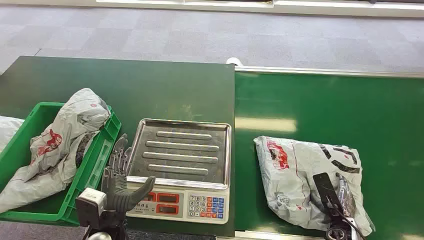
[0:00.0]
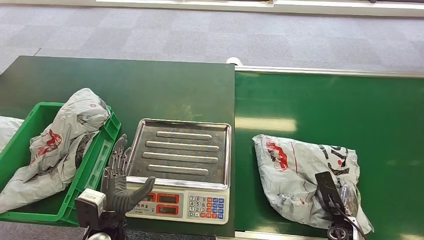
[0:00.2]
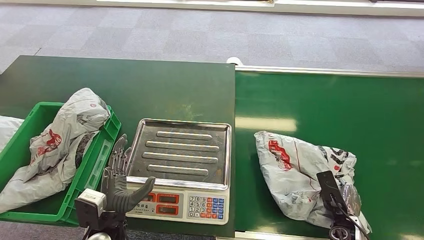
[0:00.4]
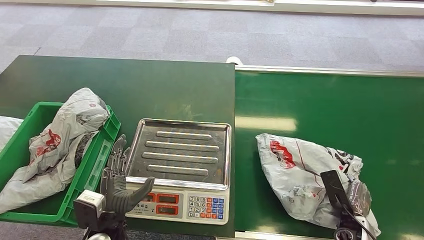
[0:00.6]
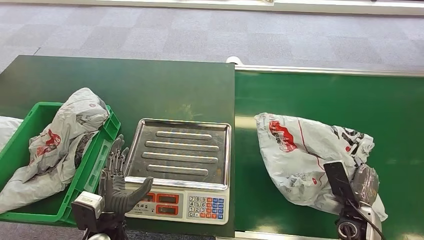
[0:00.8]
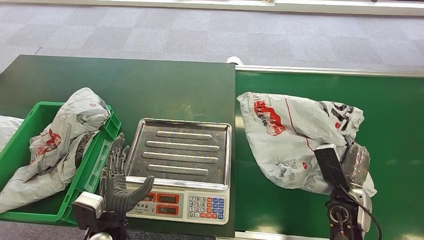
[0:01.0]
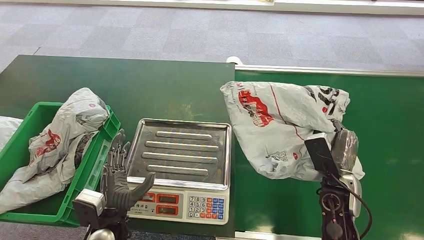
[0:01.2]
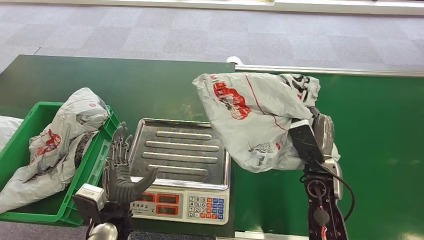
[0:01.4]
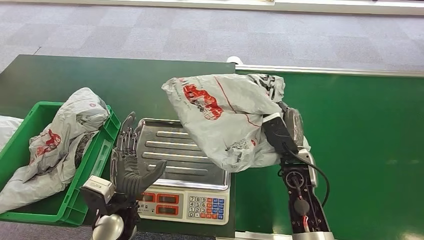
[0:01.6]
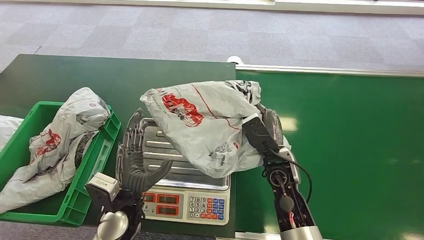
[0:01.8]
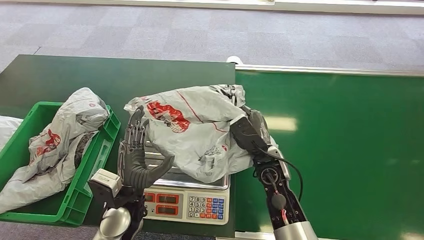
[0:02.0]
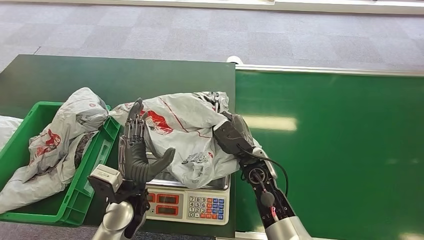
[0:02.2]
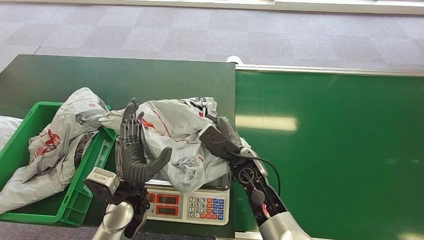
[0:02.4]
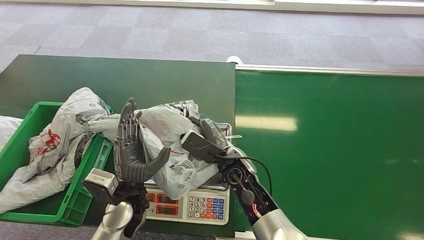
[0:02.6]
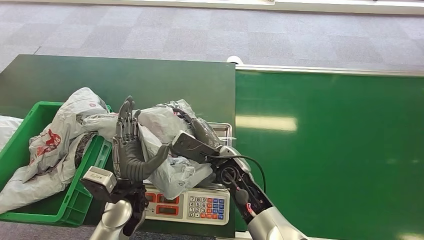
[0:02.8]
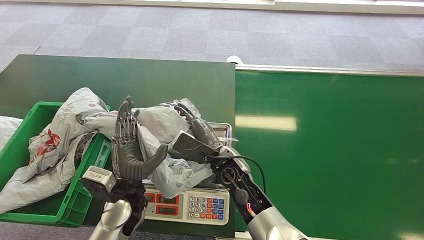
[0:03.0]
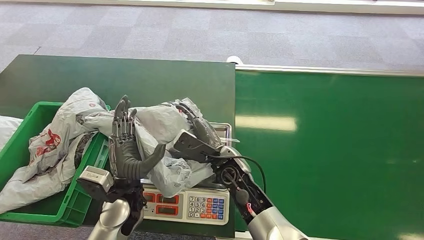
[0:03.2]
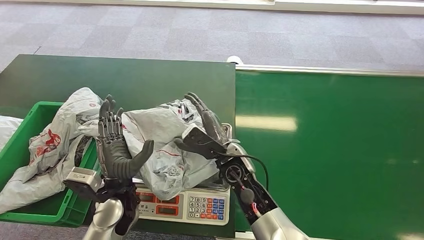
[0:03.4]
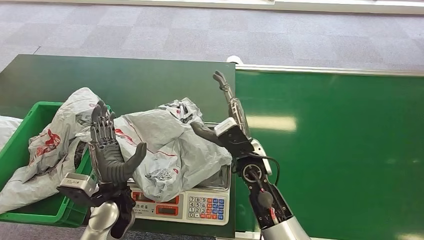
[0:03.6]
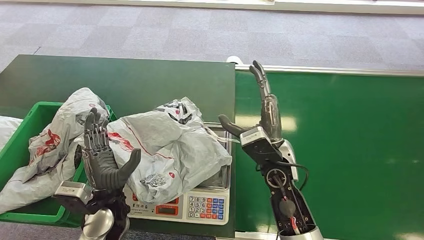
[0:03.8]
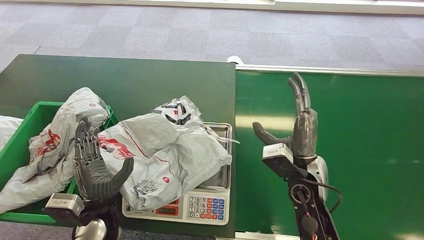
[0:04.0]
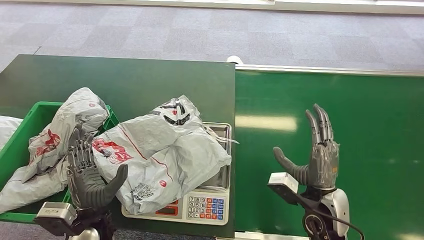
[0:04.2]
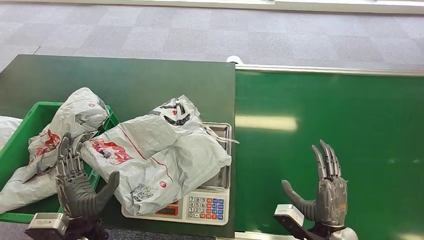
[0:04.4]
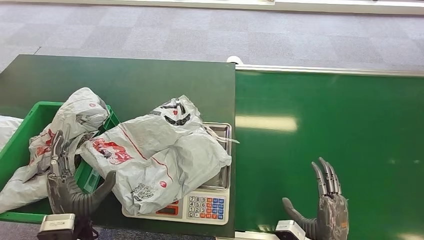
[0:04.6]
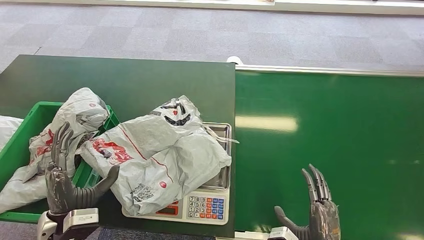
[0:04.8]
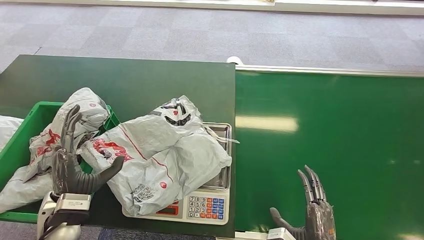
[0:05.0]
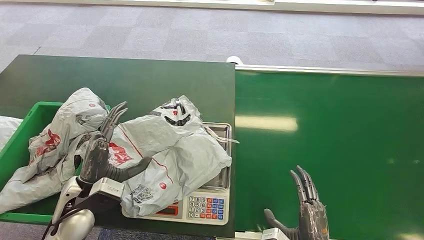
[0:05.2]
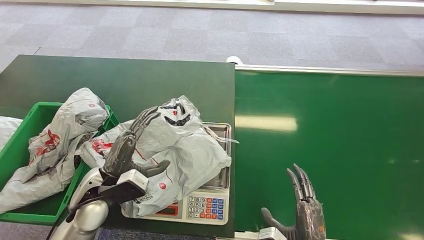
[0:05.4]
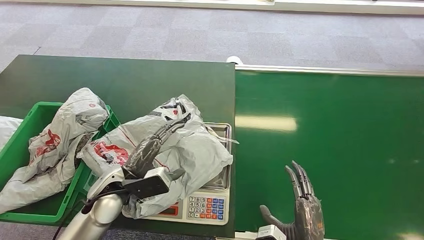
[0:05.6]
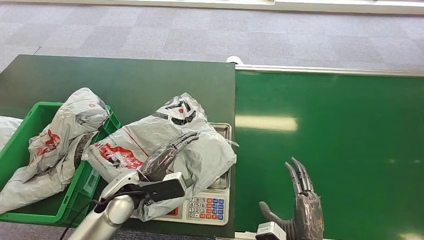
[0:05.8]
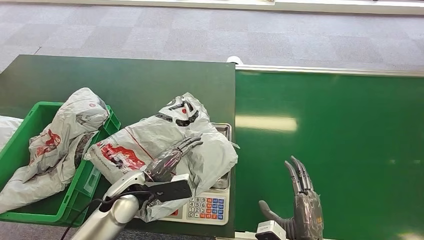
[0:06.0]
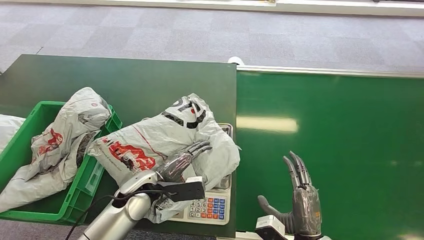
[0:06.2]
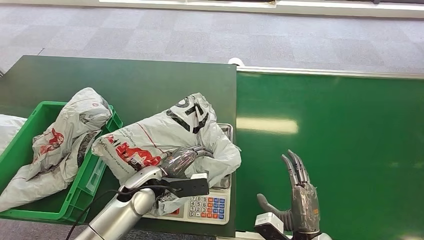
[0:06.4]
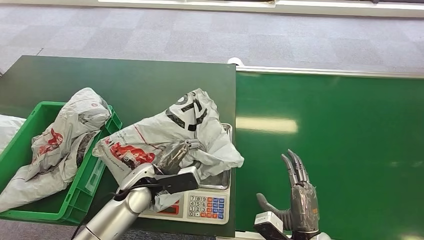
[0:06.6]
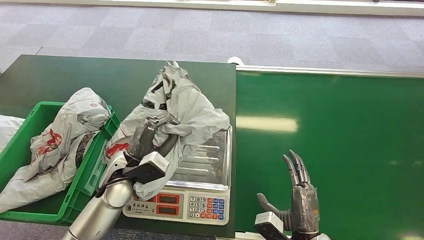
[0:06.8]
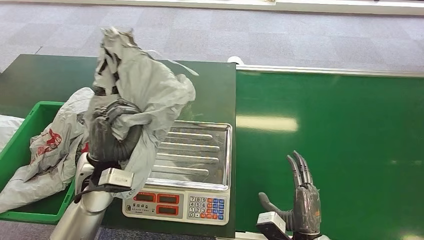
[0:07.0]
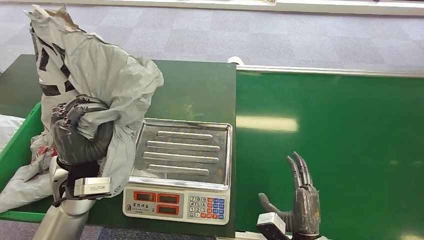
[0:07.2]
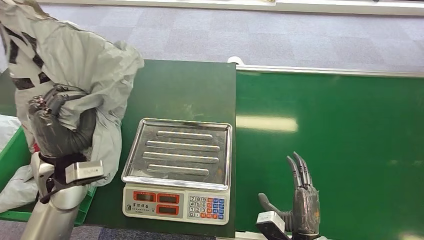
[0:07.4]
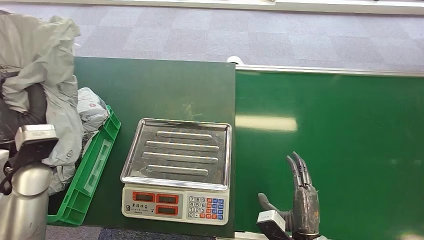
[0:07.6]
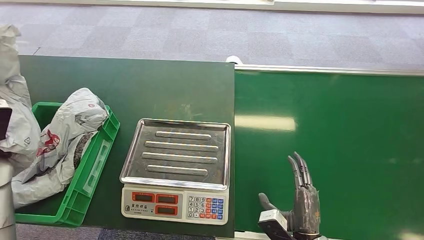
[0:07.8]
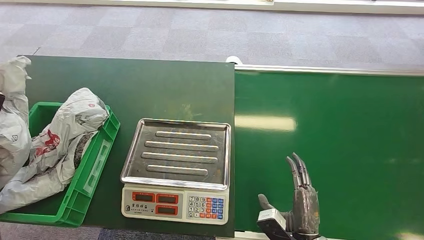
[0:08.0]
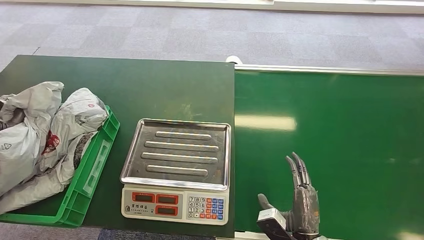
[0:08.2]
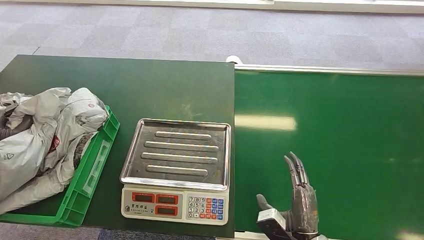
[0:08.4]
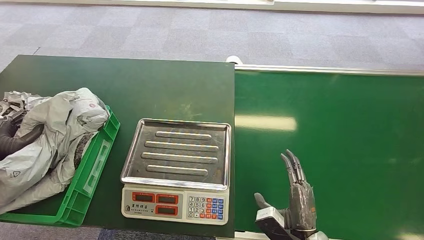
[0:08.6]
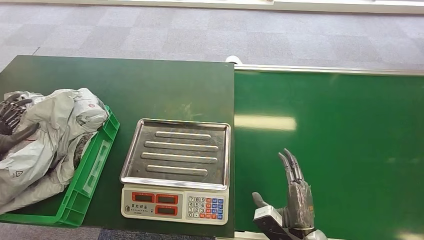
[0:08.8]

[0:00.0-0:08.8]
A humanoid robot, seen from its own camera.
Step, 0:00.0 to 0:01.0: Pick up the package from the conveyor belt.
Step, 0:01.6 to 0:03.6: Place the package onto the inbound machine.
Step, 0:06.0 to 0:07.2: Pick up the package from the inbound machine.
Step, 0:07.8 to 0:08.8: Place the package into the parcel locker.
0:04.4 to 0:05.8: The left hand shifts roughly 10 cm forward and to the right, while the right hand changes place by about 5 cm.

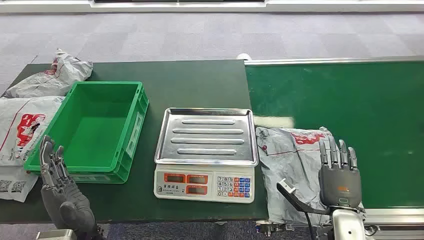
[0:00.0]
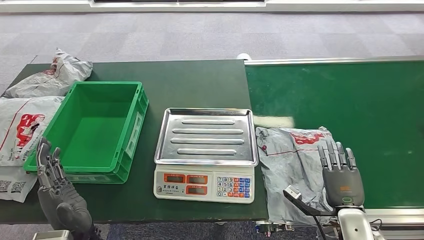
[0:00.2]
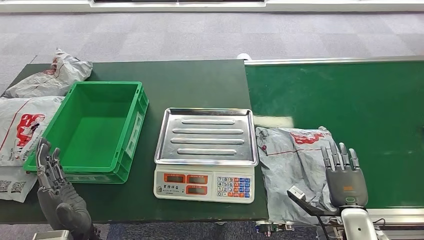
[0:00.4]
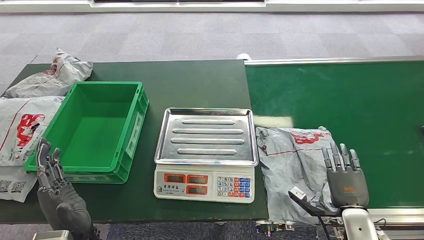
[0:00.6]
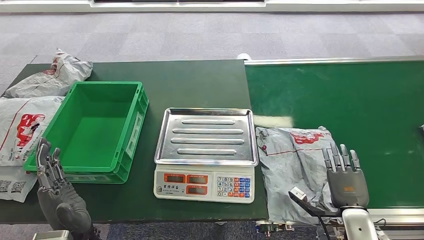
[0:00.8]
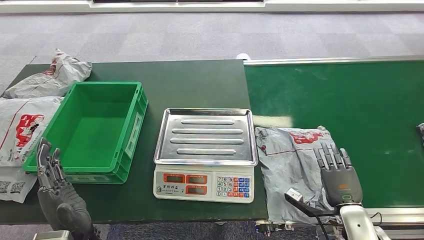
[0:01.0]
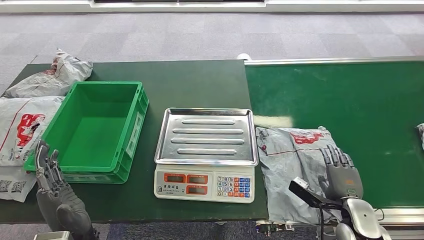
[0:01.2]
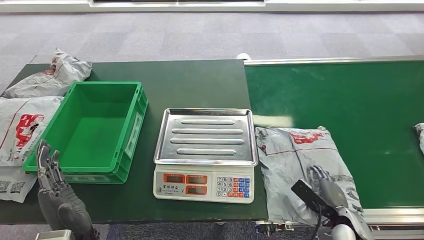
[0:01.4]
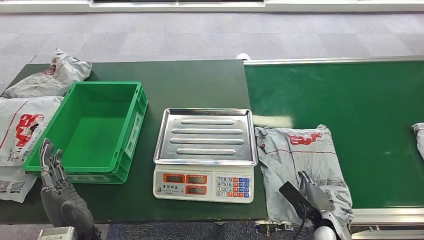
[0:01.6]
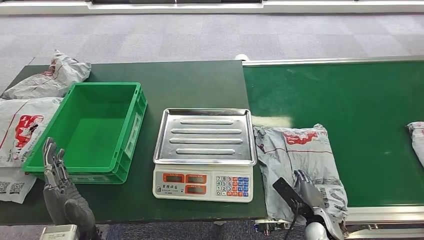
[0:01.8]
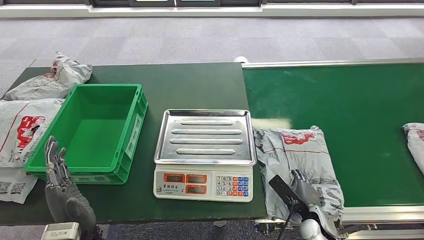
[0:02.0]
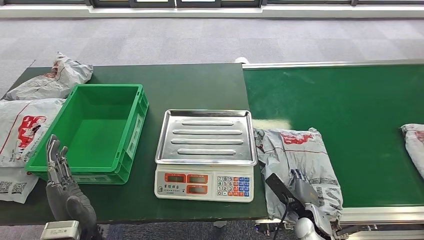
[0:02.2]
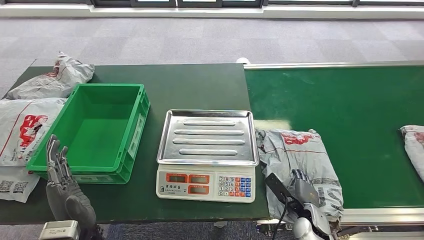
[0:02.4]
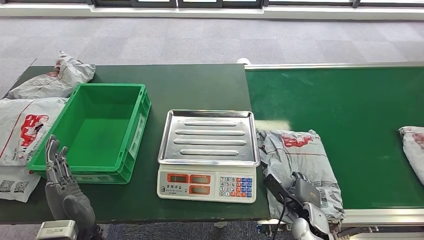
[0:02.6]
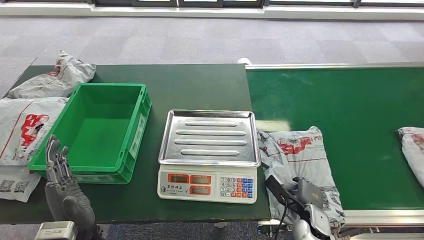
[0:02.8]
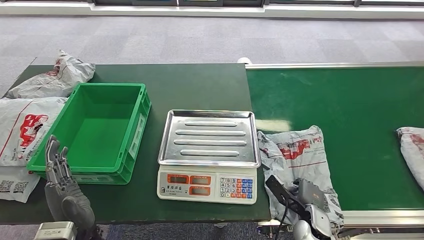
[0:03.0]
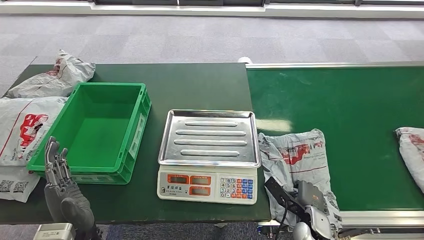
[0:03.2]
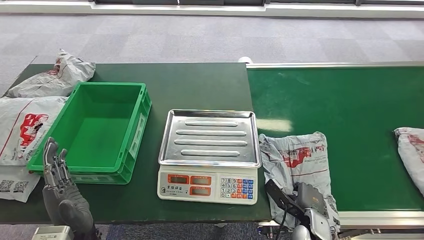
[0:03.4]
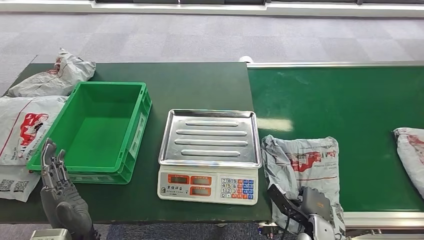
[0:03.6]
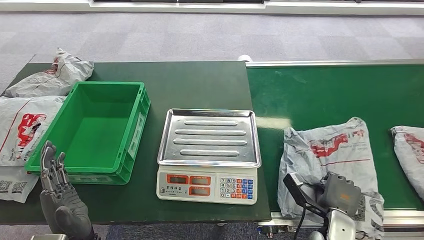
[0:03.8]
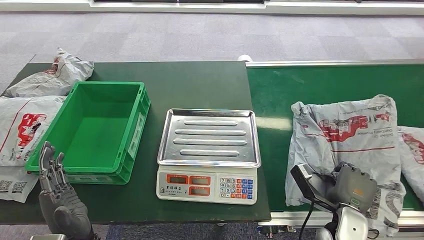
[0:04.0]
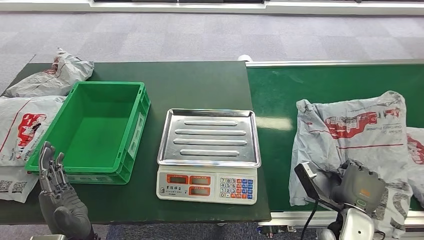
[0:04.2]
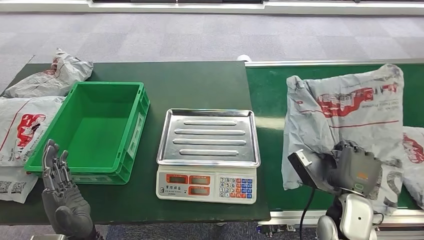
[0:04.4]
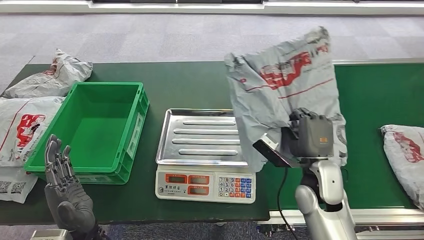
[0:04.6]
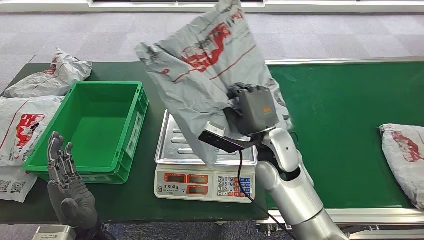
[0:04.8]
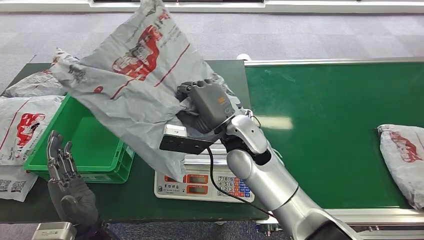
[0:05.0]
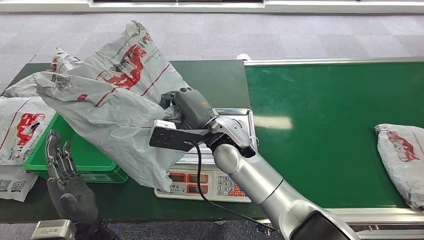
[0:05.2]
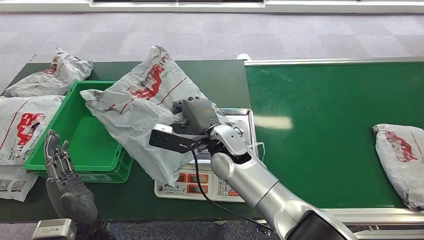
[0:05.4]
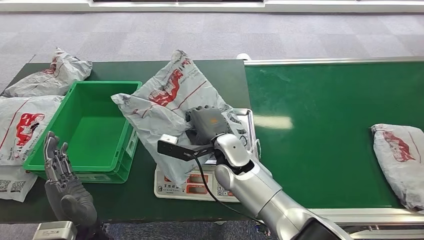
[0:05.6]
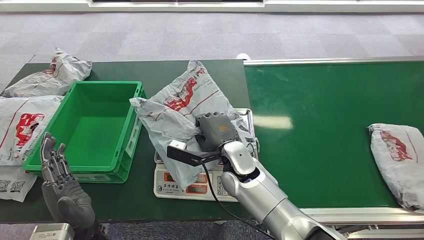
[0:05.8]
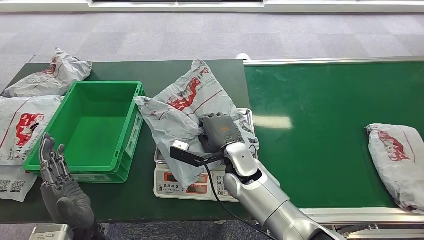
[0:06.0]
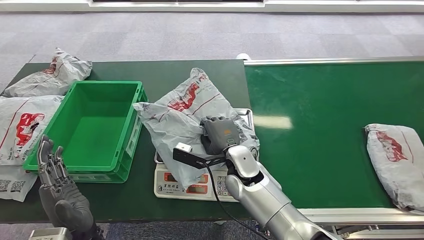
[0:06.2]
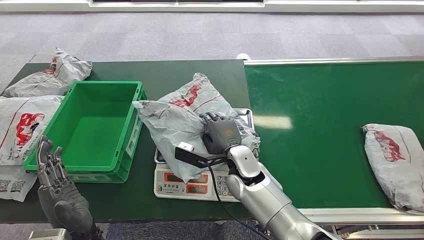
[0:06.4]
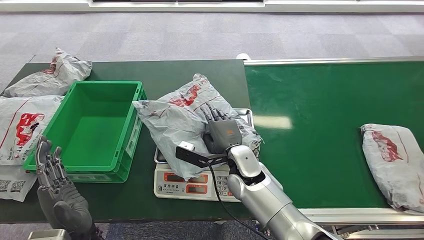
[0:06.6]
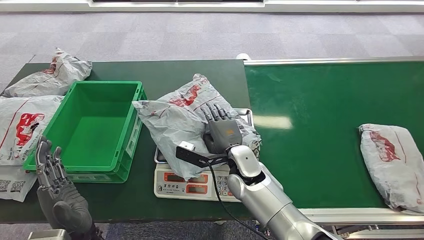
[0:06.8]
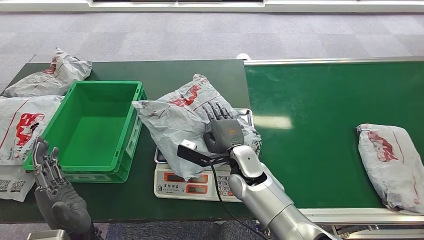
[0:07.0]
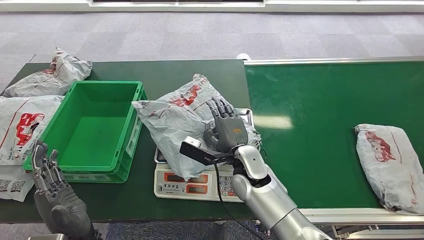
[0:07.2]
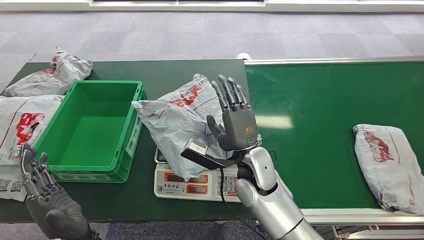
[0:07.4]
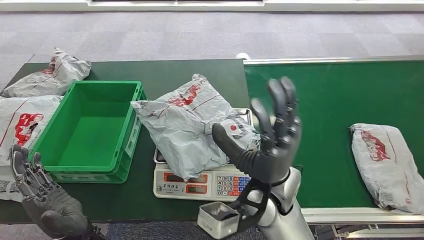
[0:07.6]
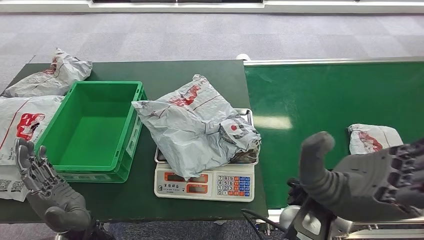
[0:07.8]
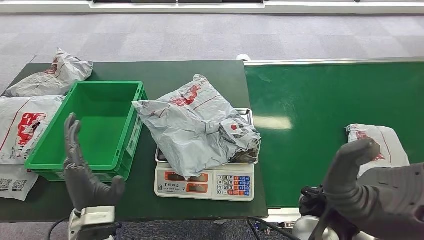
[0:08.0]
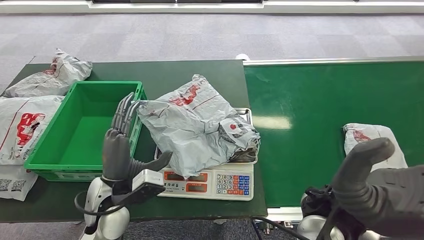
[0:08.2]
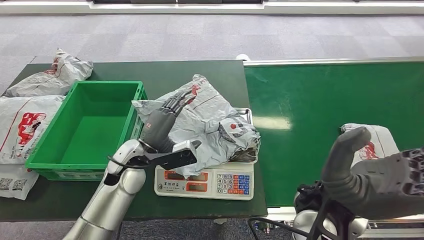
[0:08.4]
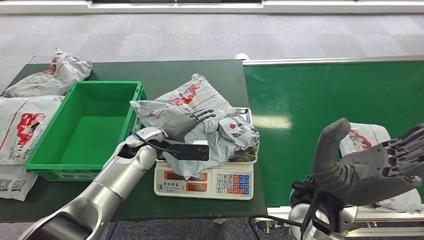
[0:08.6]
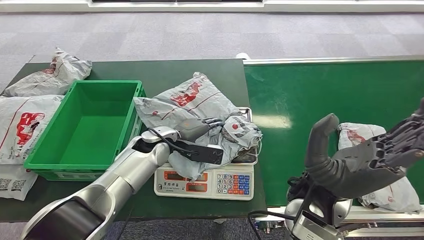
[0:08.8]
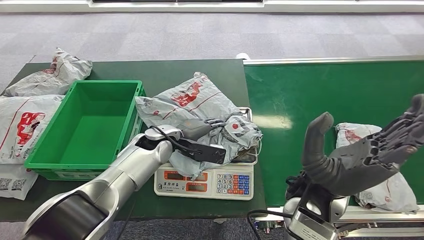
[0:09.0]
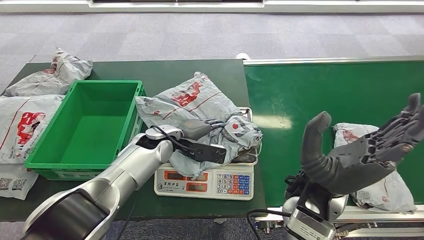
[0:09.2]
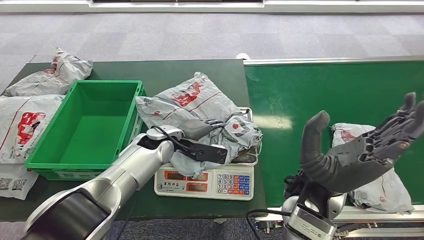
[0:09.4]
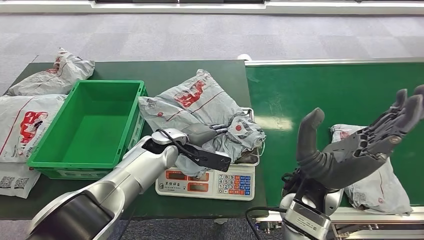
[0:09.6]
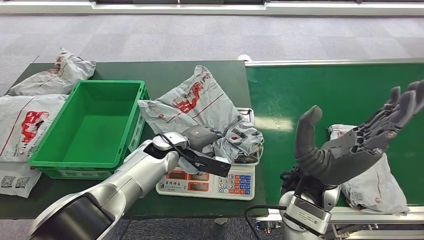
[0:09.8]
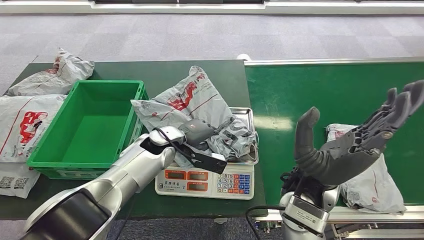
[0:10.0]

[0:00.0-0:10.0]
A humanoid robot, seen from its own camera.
Step, 0:00.0 to 0:04.6: Pick up the package from the conveyor belt.
Step, 0:04.8 to 0:08.0: Place the package onto the inbound machine.
0:05.8 to 0:07.2: There are only small adjustments of the hands.
